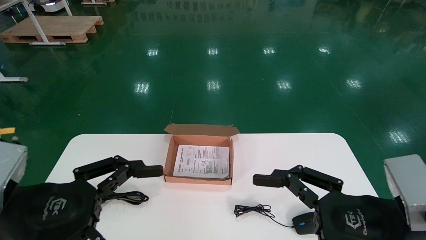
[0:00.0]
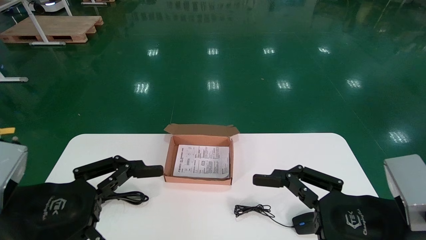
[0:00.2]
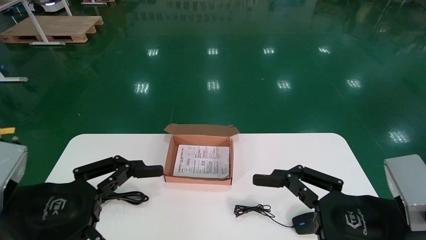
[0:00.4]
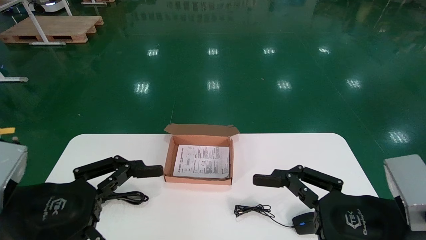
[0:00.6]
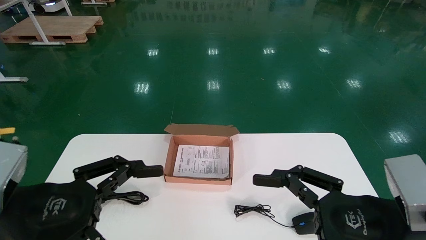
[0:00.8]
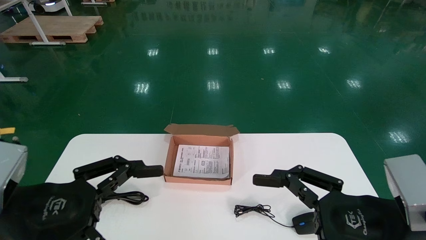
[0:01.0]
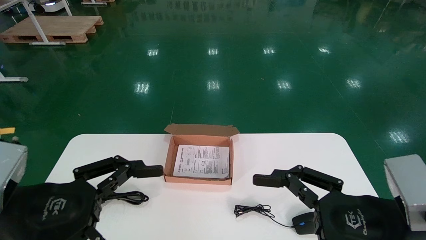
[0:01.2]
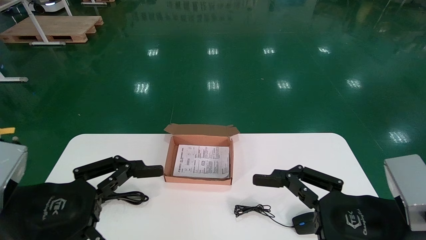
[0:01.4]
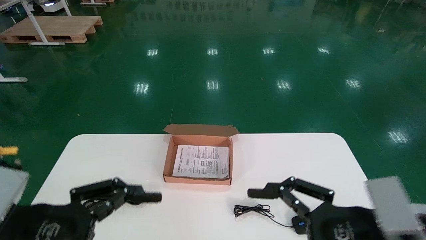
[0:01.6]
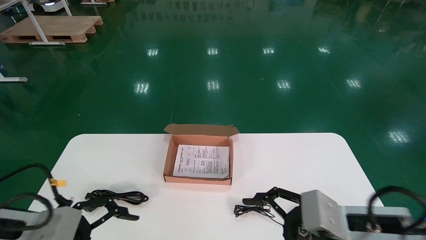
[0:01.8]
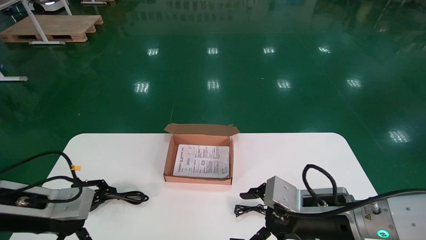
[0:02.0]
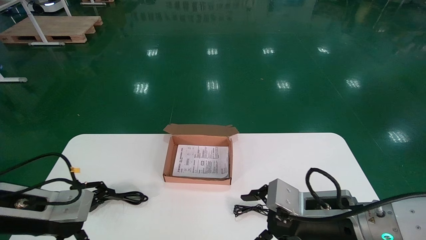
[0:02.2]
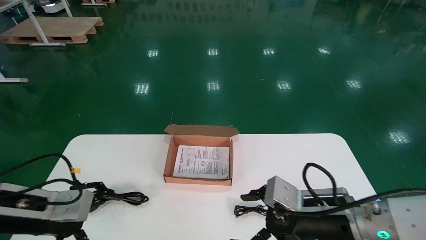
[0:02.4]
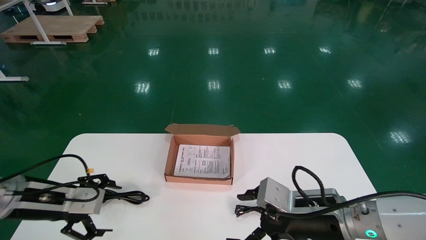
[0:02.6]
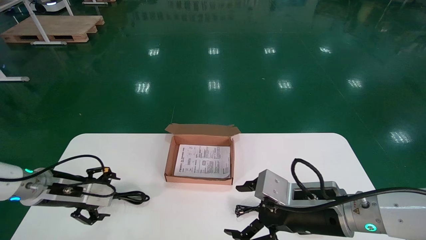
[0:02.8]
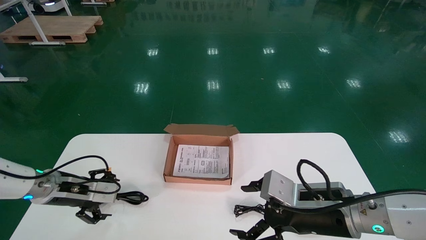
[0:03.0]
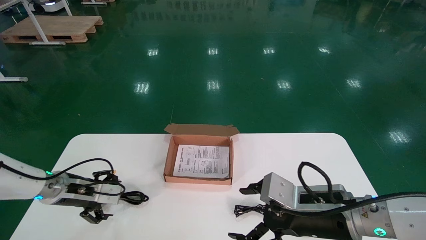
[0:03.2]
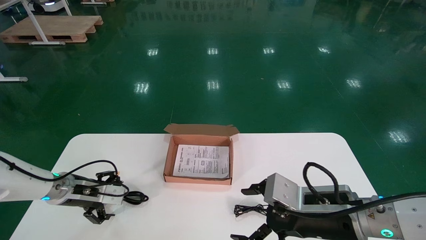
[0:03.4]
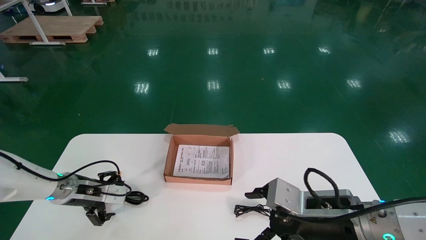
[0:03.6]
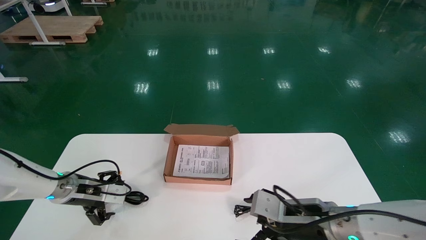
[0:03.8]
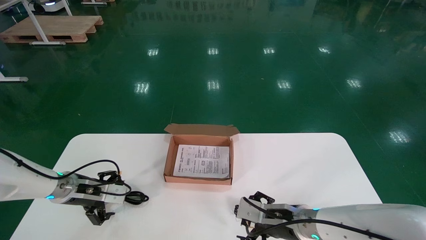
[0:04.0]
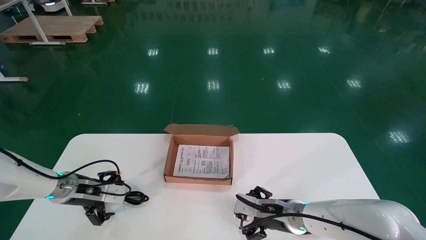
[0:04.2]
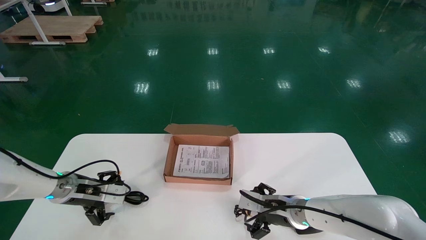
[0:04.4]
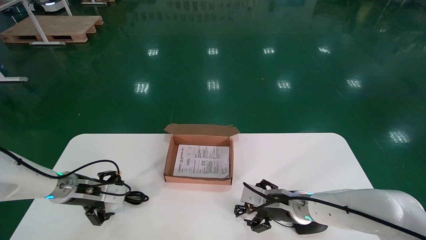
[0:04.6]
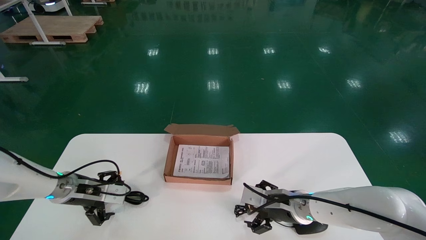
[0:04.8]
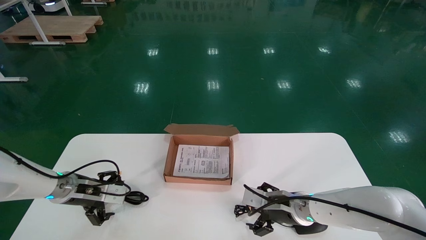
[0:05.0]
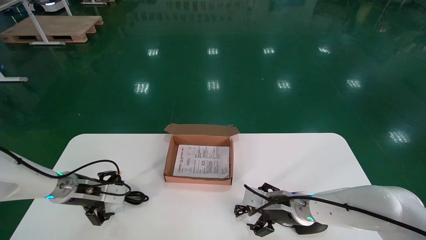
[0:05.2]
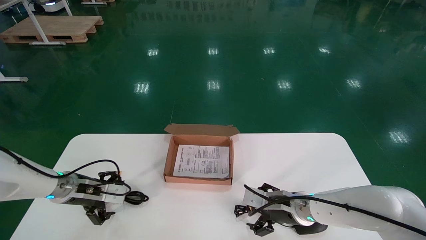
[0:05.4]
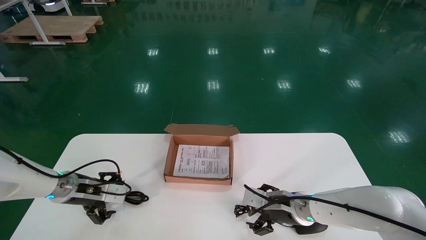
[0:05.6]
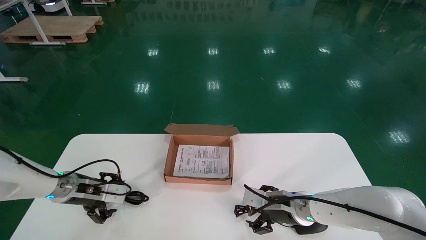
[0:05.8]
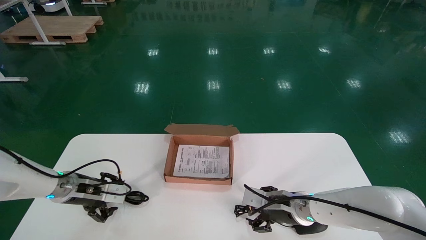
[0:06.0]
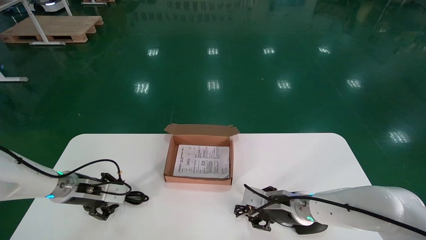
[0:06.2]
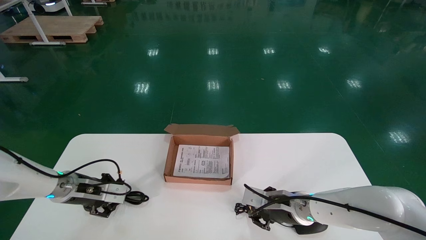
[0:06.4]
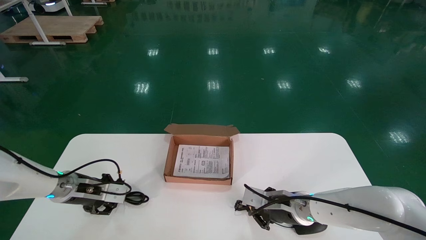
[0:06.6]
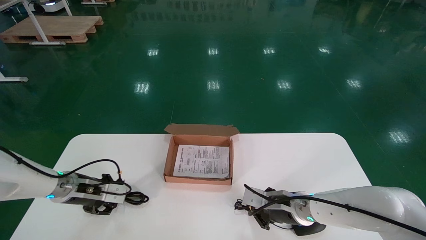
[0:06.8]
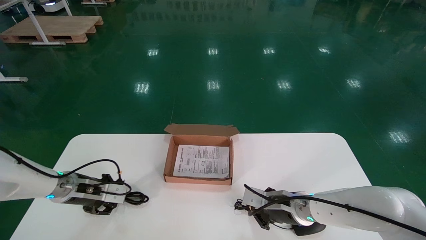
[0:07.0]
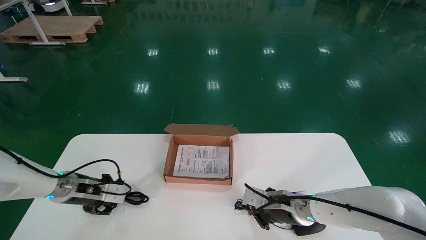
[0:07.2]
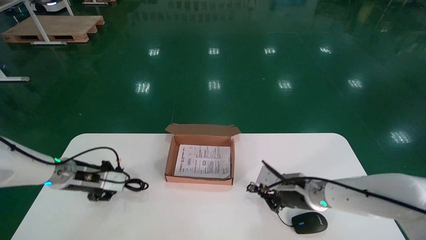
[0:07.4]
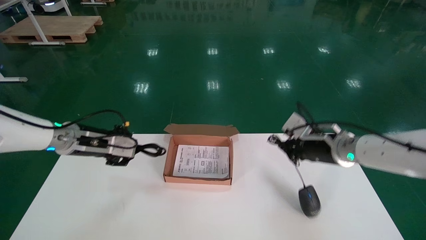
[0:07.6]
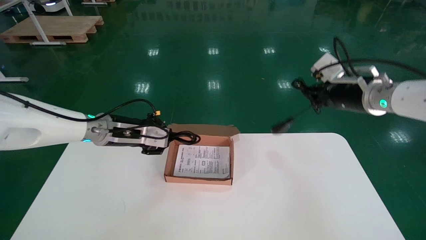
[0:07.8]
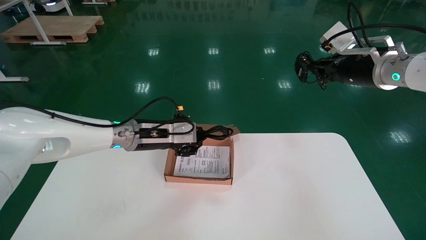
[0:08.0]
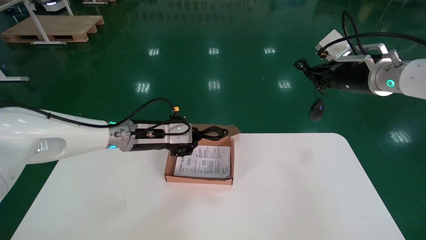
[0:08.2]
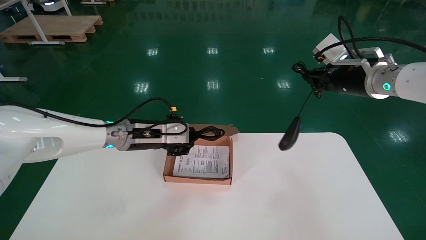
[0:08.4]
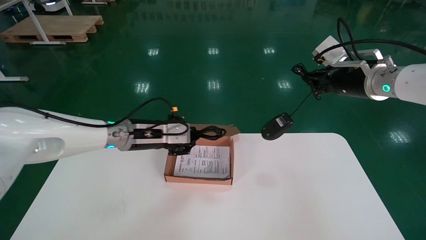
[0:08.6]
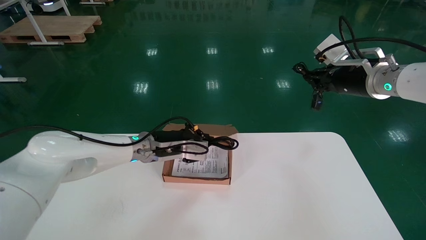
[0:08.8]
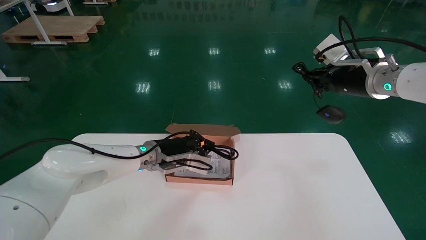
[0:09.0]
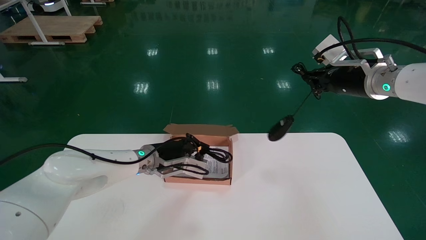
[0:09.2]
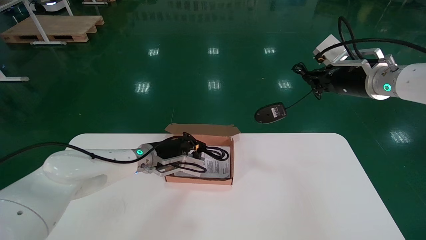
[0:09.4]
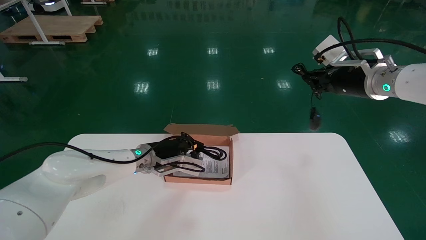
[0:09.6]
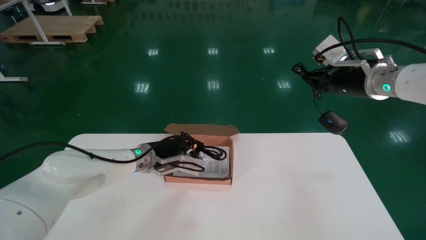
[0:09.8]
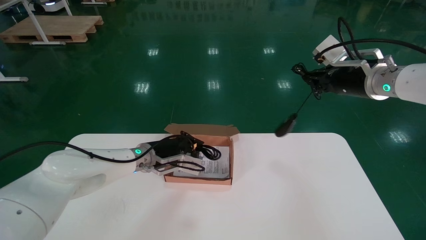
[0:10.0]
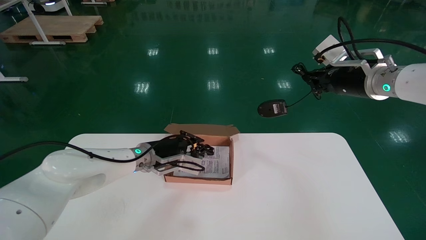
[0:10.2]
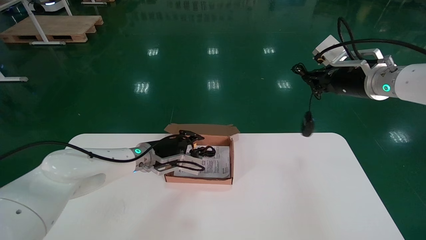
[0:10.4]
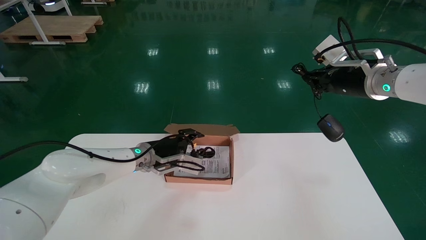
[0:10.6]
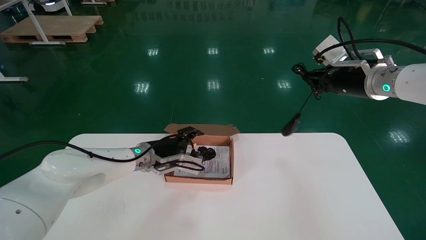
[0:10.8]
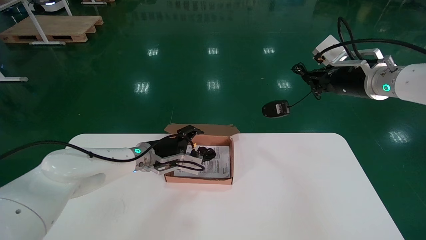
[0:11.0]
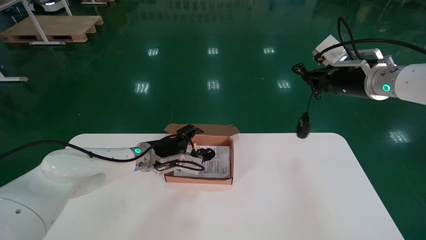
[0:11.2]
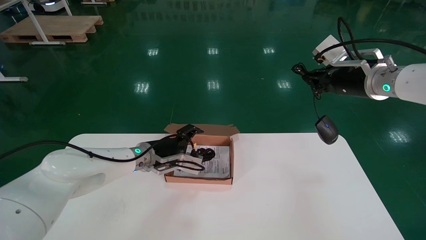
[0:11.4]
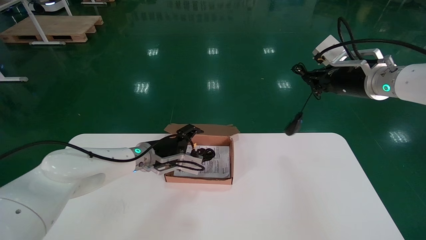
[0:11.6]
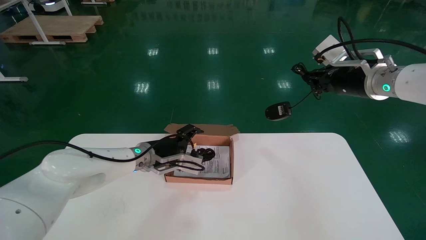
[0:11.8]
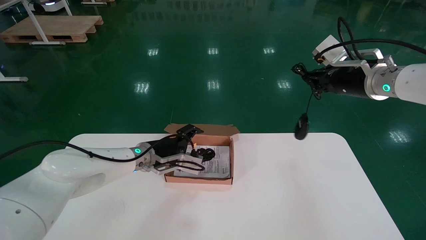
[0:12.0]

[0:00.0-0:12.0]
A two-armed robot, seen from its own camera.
Step, 0:02.0 to 0:06.6: Simultaneously pick up the mouse and power cord from the accessory packaging area.
0:01.6 to 0:03.0: The right gripper travels forward by roughly 10 cm, while the left gripper travels forward by approximately 20 cm.
0:03.0 to 0:04.4: The right gripper heads forward and downward, covering about 15 cm.
0:04.4 to 0:06.0: The two grippers keep their place.
0:06.0 to 0:07.6: Both grippers move upward and to the right, some 15 cm. The right gripper closes its fingers. The left gripper closes up.
0:07.6 to 0:09.0: The right gripper shifts roughly 15 cm upward; the left gripper heads to the right, covering some 15 cm.
0:09.0 to 0:10.4: There are only small adjustments of the grippers.

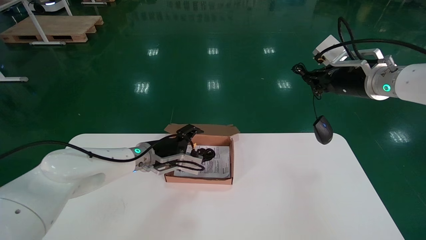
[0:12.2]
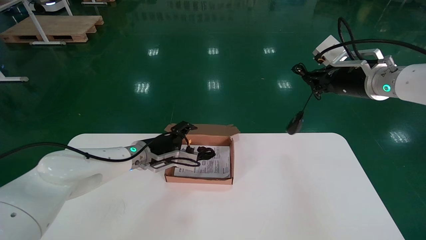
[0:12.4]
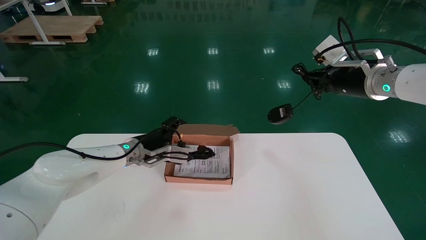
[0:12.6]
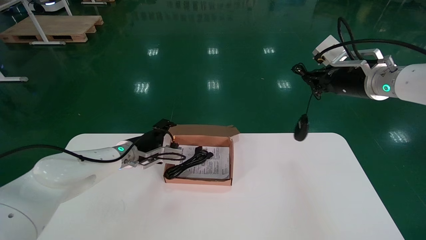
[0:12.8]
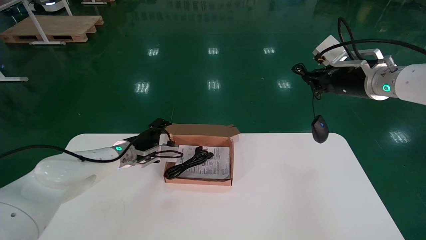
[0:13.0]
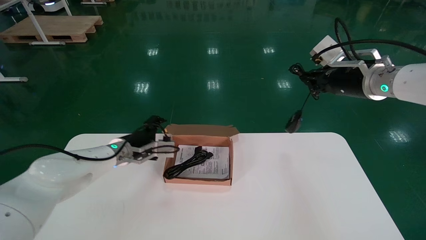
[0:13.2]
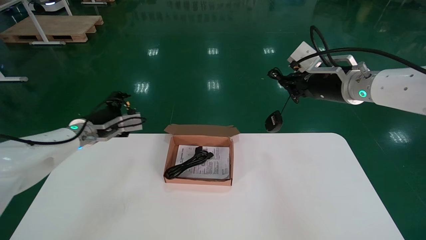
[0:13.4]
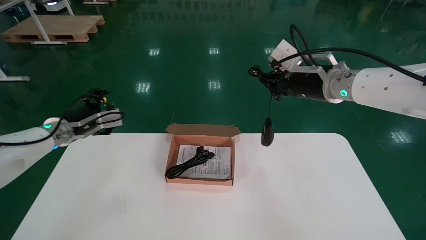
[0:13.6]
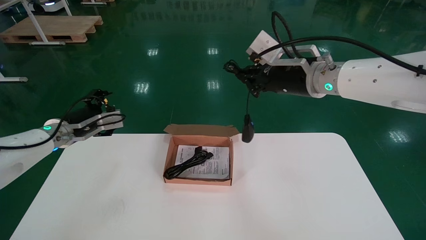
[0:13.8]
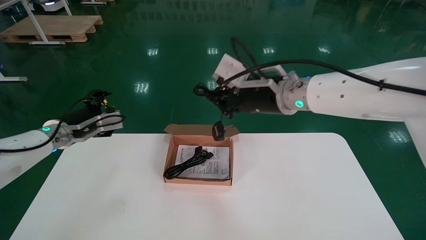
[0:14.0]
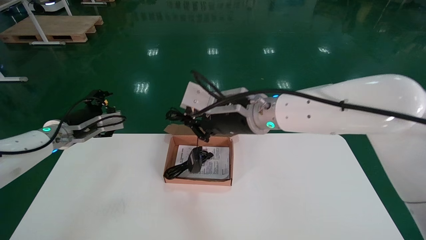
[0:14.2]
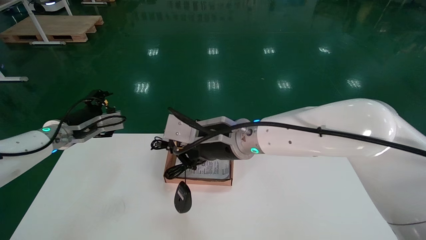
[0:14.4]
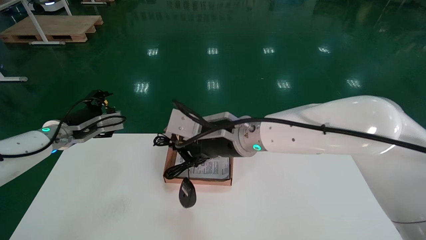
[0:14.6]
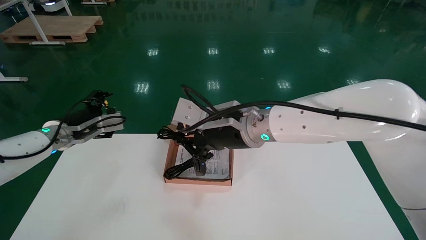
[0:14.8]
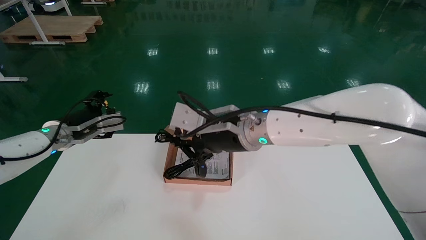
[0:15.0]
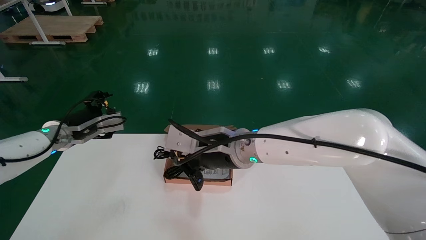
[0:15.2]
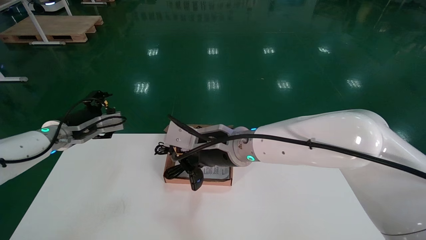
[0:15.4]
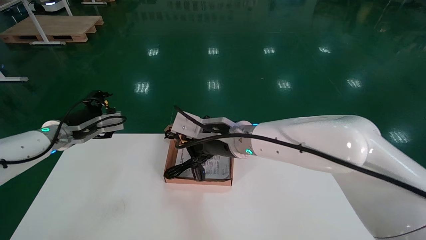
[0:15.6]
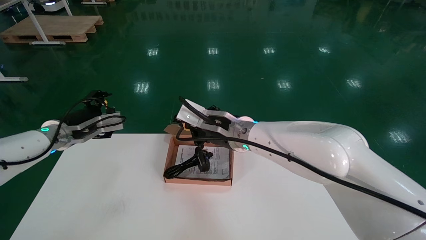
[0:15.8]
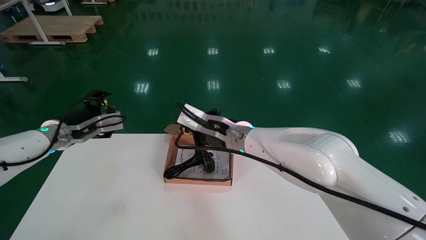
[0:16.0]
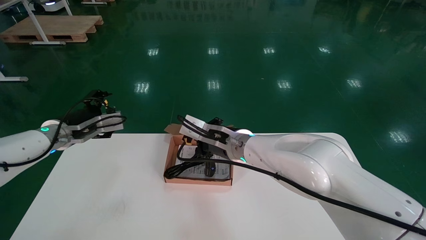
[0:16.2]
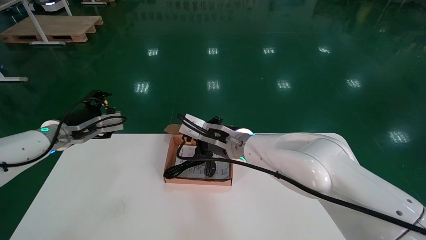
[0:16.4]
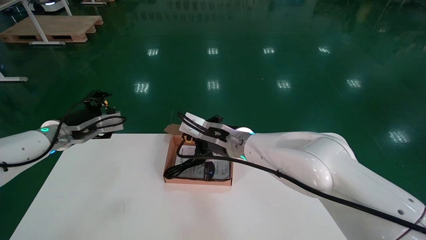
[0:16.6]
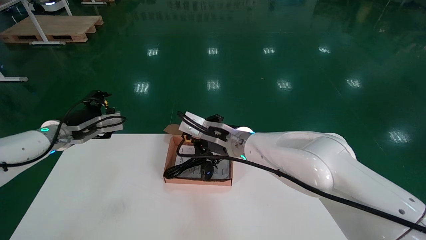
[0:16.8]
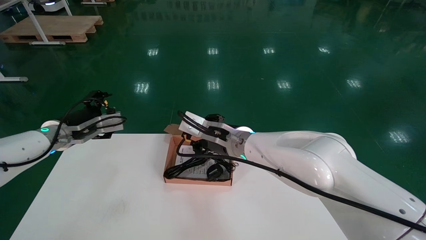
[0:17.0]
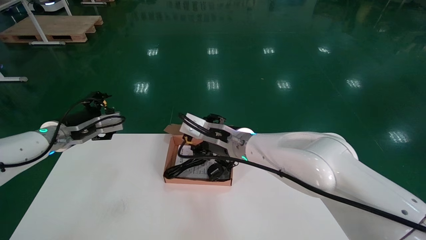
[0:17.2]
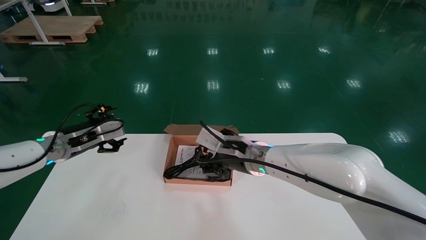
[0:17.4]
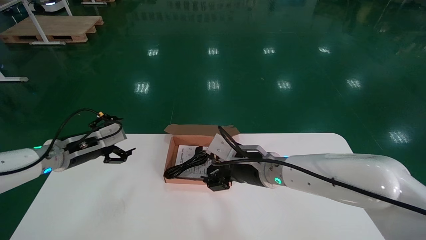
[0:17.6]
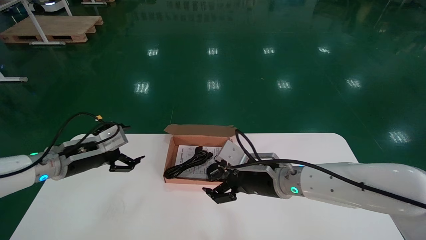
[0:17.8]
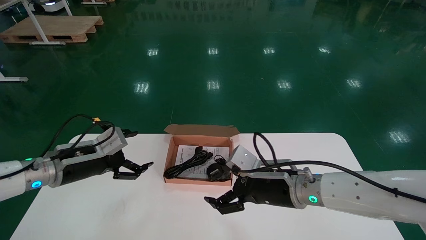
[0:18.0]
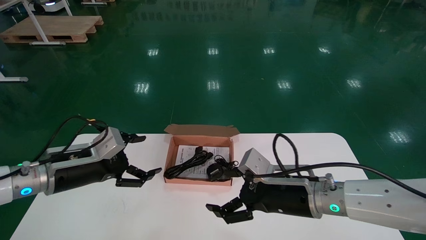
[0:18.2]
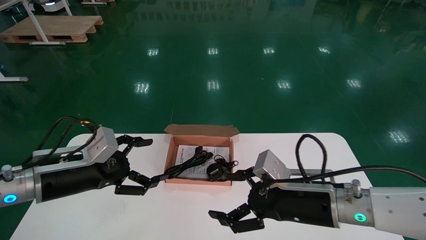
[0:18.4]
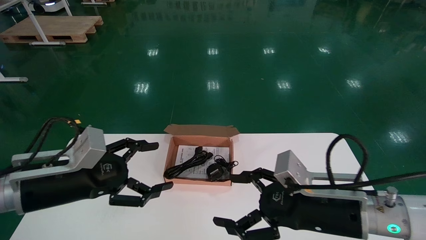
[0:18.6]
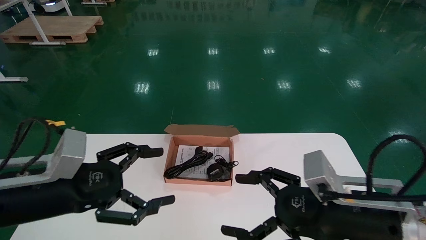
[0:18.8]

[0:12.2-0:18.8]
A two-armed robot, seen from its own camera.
Step, 0:12.2 to 0:16.8: Place the mouse and power cord into the box.
0:12.2 to 0:13.8: Both grippers move to the left, some 15 cm.
0:13.8 to 0:15.4: The right gripper moves to the left and downward, some 15 cm.
0:15.4 to 0:17.2: The right gripper ends up some 5 cm from where it was, and opens its fingers.
0:17.2 to 0:18.8: The left gripper heads backward, covering some 20 cm. The right gripper moves backward and to the right, about 25 cm, and opens its fingers.
